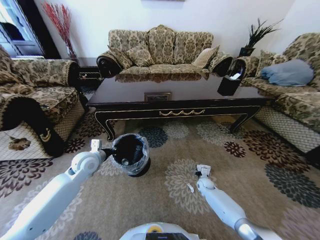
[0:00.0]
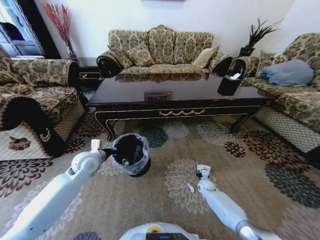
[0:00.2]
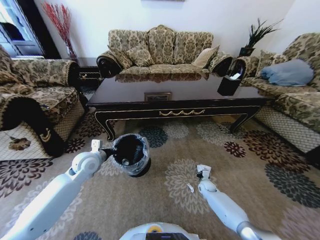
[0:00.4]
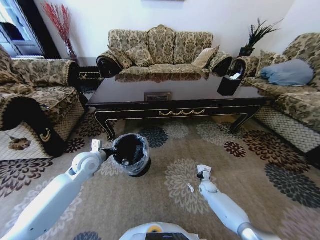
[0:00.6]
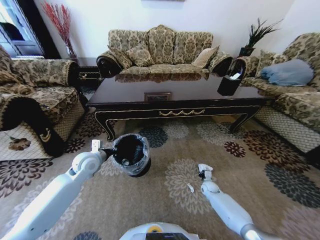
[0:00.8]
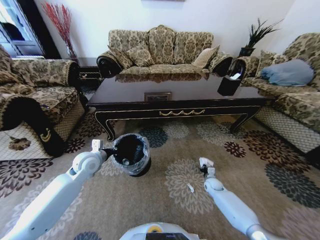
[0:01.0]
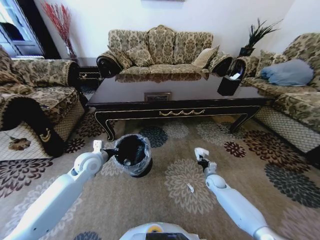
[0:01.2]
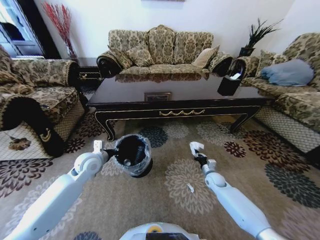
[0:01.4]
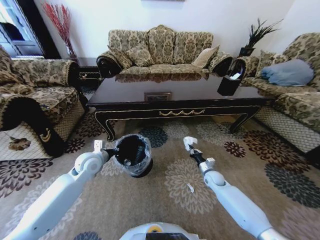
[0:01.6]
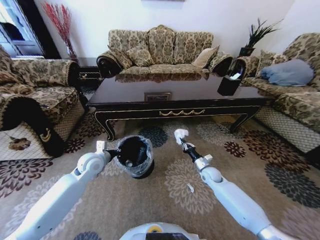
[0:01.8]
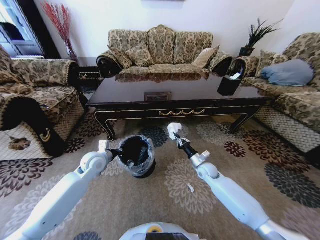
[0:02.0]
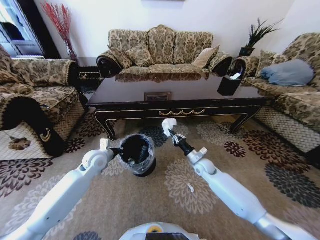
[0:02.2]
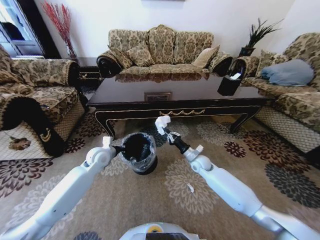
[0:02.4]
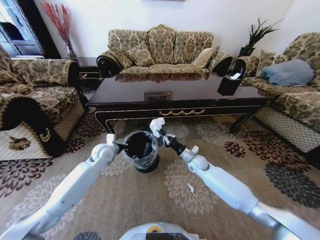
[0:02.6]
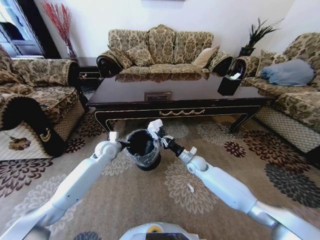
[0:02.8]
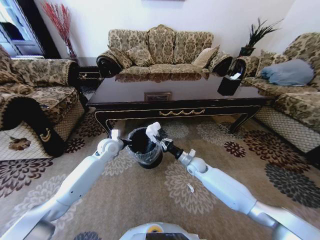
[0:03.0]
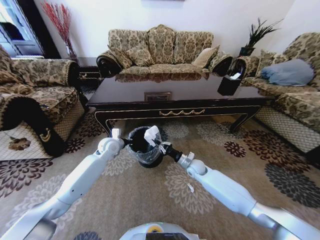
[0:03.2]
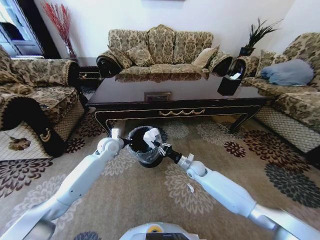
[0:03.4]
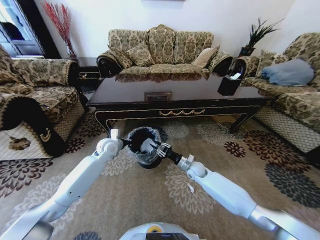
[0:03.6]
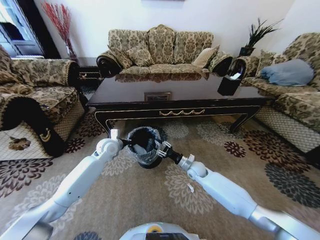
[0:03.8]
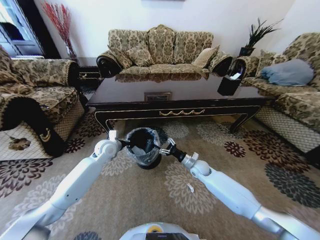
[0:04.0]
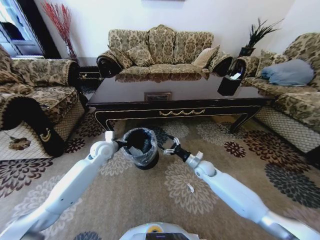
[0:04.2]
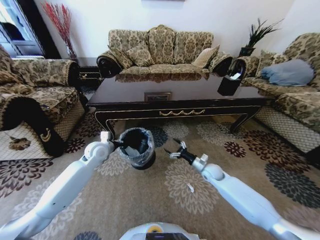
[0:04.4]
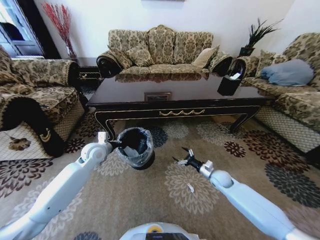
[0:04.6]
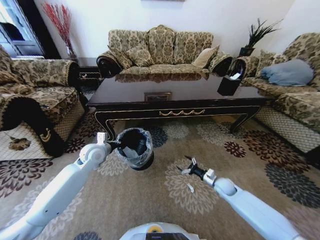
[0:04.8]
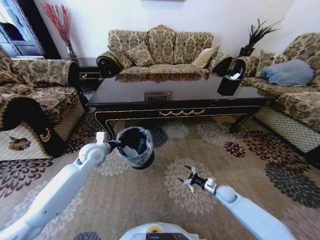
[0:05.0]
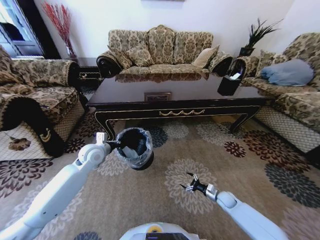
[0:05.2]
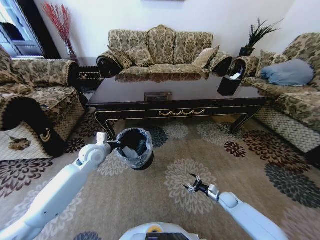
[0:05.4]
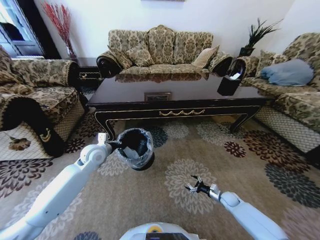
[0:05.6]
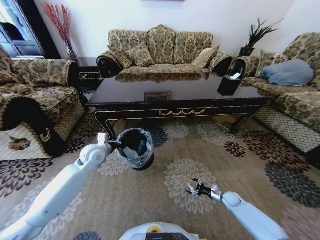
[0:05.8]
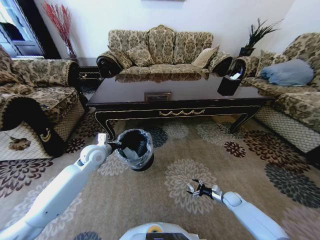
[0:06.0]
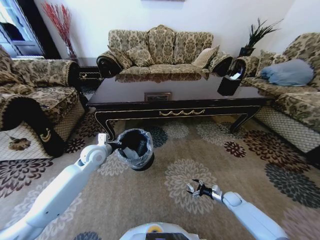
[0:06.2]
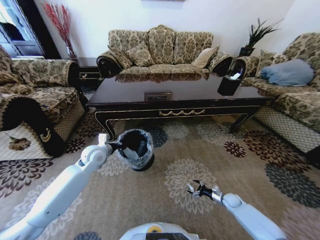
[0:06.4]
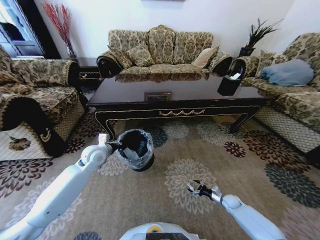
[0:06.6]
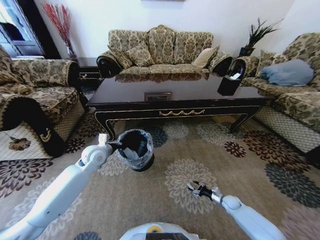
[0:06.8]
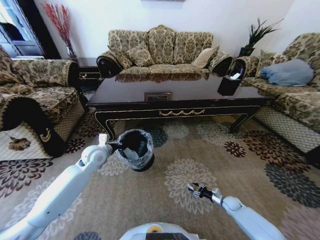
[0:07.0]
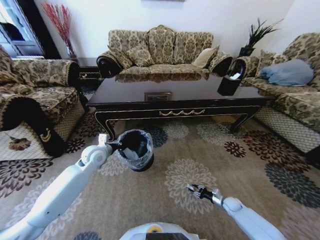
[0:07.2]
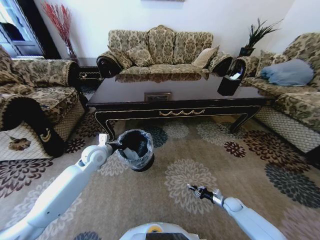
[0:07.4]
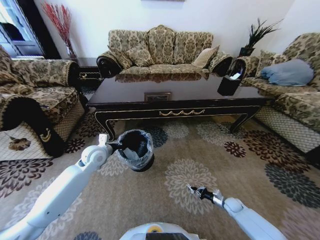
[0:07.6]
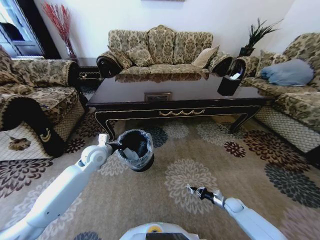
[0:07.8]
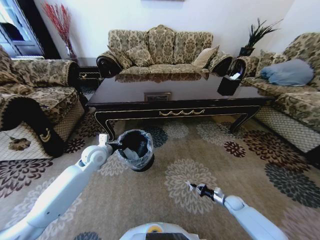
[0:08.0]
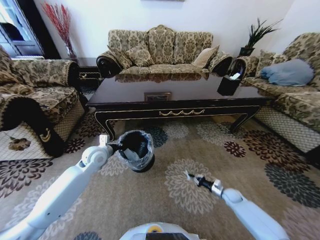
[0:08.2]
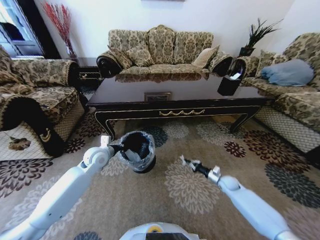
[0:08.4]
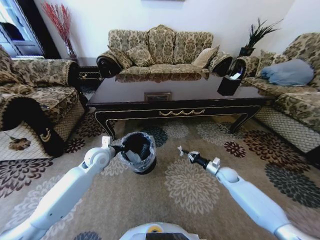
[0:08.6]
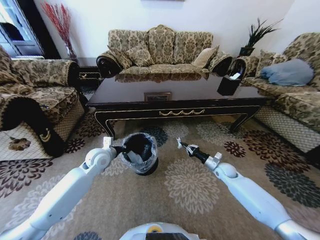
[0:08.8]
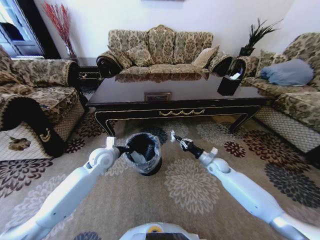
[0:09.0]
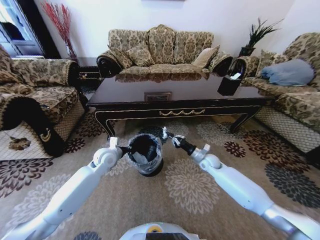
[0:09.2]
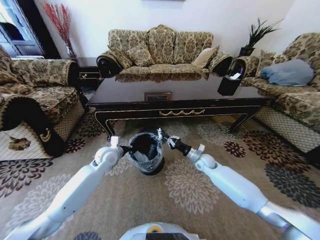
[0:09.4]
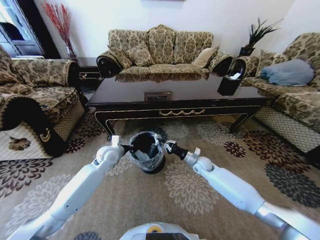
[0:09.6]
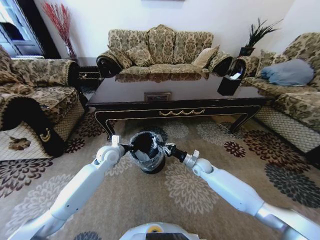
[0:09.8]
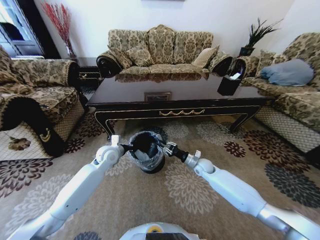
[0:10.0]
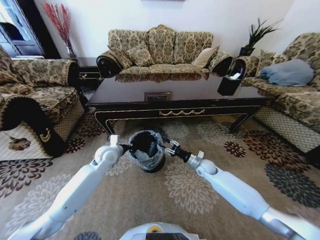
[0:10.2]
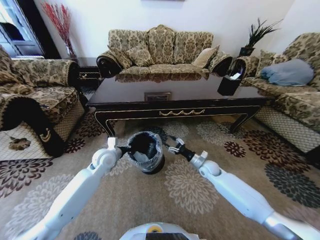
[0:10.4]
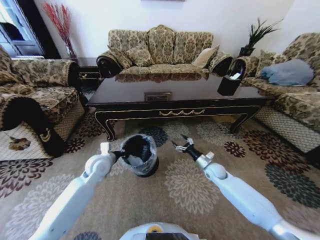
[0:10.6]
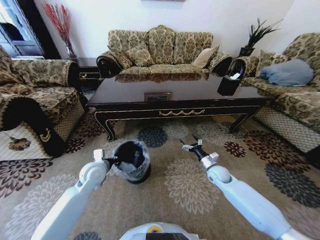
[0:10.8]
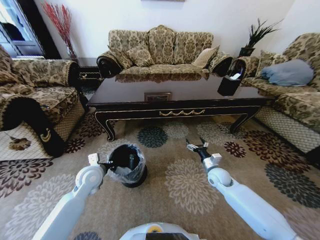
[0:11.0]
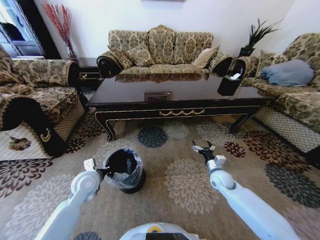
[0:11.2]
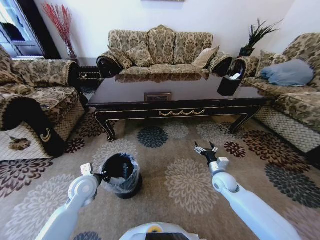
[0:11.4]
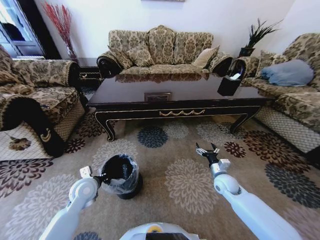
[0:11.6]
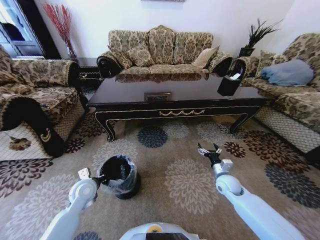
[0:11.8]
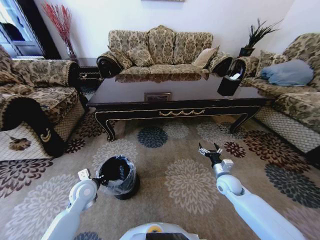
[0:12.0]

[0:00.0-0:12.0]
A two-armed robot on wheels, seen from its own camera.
Task of the whole recording: Move to the front of the table and pick up the trash from the floor, then place it into the trash bin.
0:00.0 to 0:01.6: The right gripper shifts roughly 10 cm upward, and closes up.
0:01.6 to 0:03.0: The right gripper is displaced to the left and upward by some 15 cm. Meanwhile the left gripper moves forward and to the right, approximately 10 cm.
0:03.0 to 0:04.4: The right gripper goes about 10 cm to the right, and opens. Meanwhile the left gripper changes place by about 5 cm.
0:04.4 to 0:06.0: The right gripper travels downward, to the right and backward by about 25 cm.
0:06.0 to 0:07.6: The right gripper closes.
0:07.6 to 0:09.0: The right gripper travels upward, forward and to the left by some 30 cm.
0:09.0 to 0:10.4: The right gripper opens.
0:10.4 to 0:12.0: The left gripper goes about 15 cm backward, downward and to the left. The right gripper moves backward, about 10 cm.

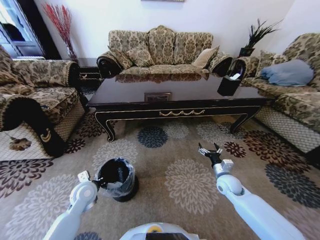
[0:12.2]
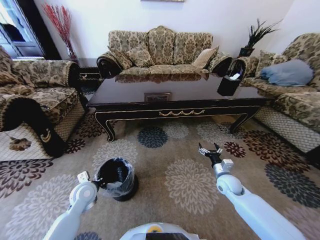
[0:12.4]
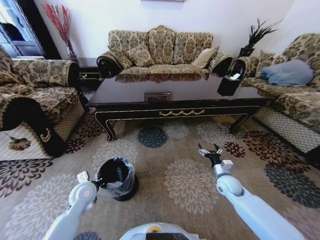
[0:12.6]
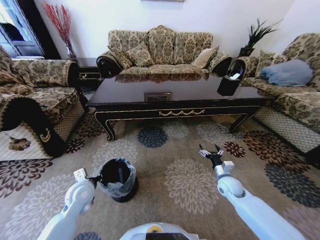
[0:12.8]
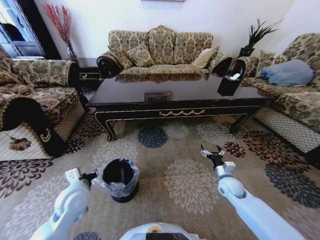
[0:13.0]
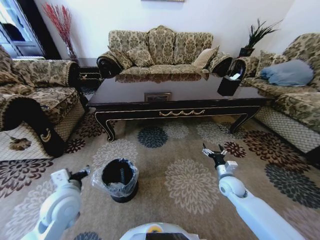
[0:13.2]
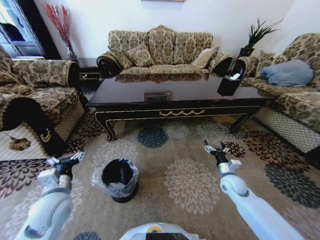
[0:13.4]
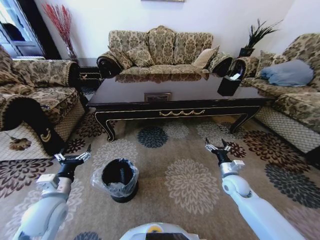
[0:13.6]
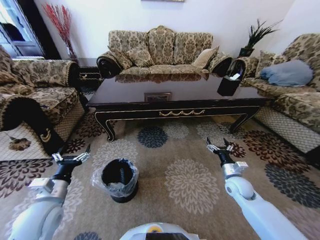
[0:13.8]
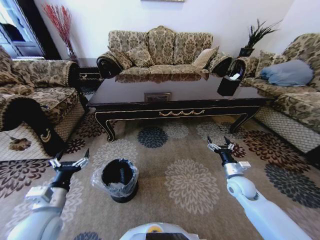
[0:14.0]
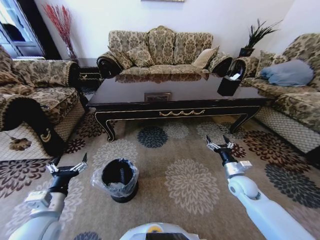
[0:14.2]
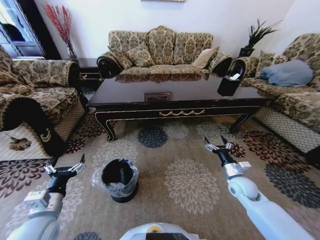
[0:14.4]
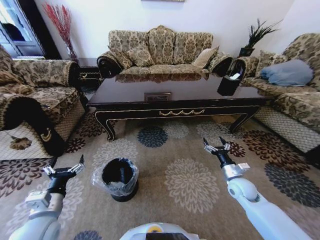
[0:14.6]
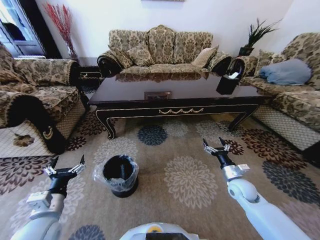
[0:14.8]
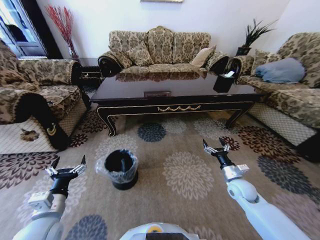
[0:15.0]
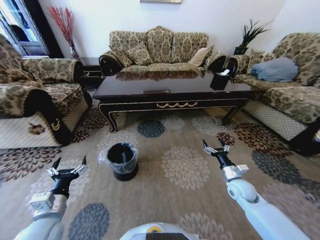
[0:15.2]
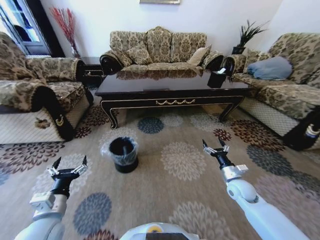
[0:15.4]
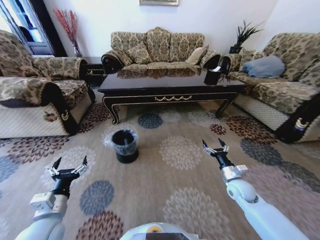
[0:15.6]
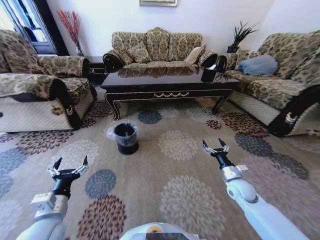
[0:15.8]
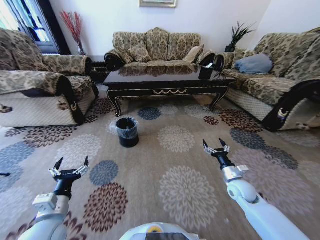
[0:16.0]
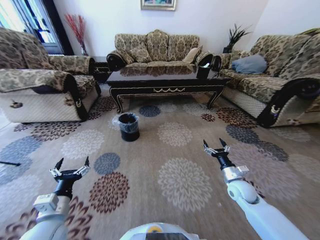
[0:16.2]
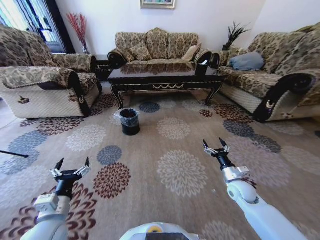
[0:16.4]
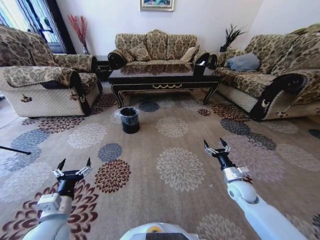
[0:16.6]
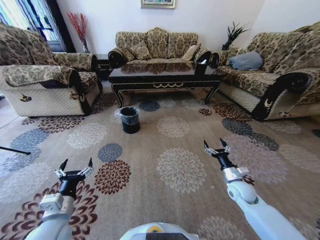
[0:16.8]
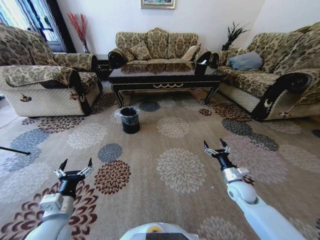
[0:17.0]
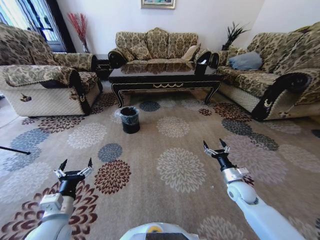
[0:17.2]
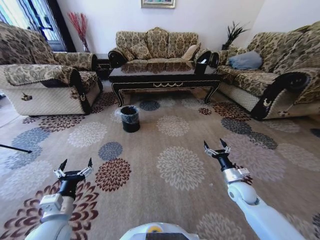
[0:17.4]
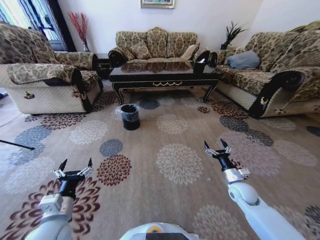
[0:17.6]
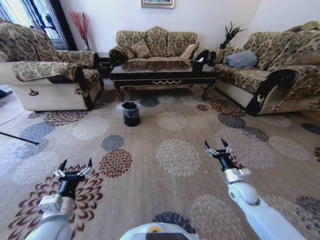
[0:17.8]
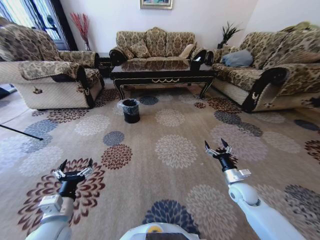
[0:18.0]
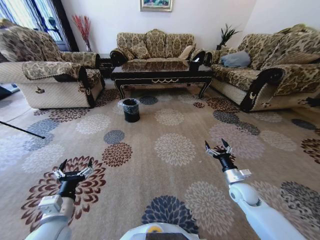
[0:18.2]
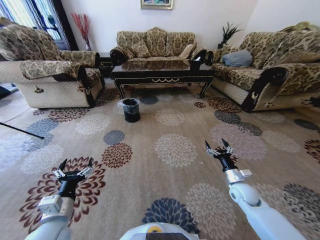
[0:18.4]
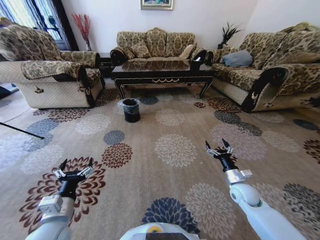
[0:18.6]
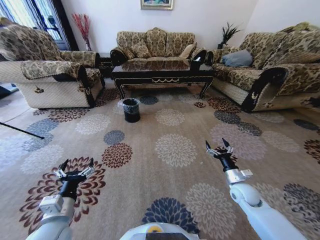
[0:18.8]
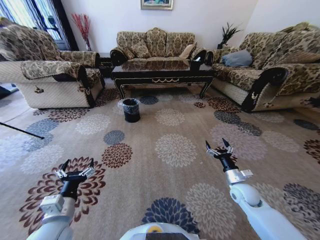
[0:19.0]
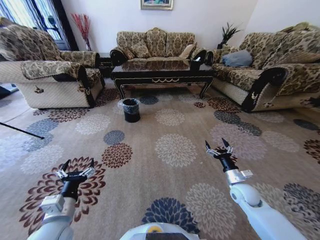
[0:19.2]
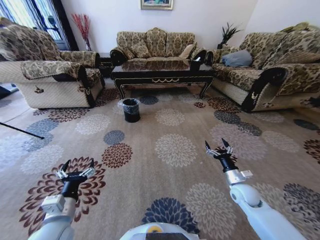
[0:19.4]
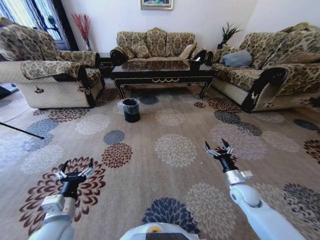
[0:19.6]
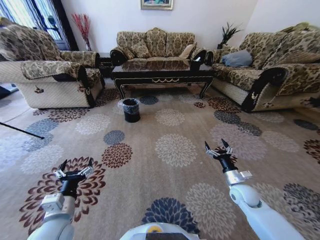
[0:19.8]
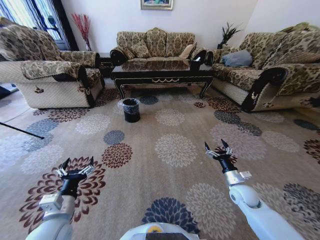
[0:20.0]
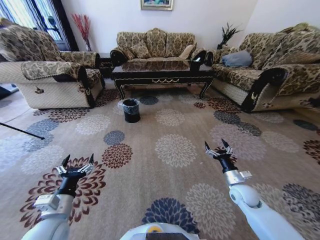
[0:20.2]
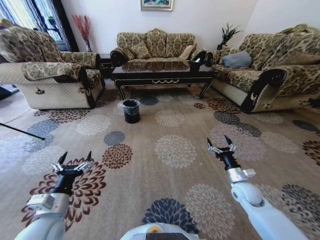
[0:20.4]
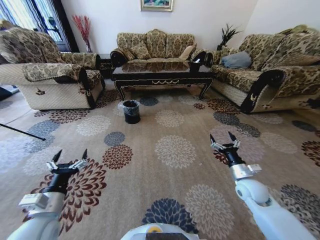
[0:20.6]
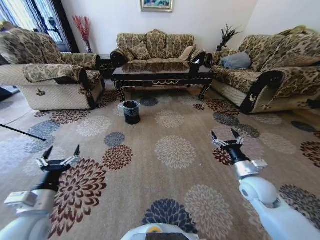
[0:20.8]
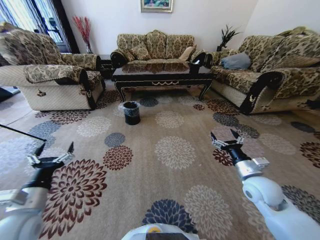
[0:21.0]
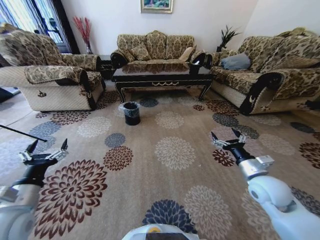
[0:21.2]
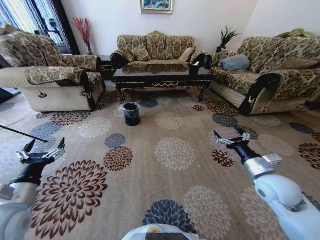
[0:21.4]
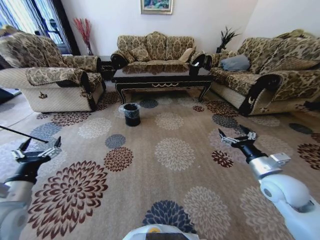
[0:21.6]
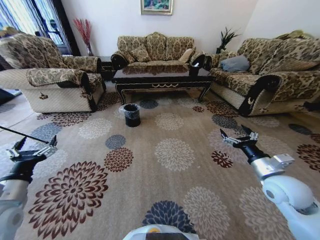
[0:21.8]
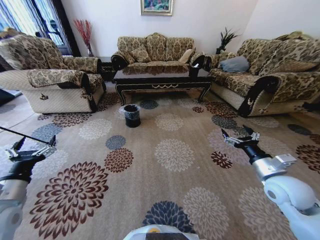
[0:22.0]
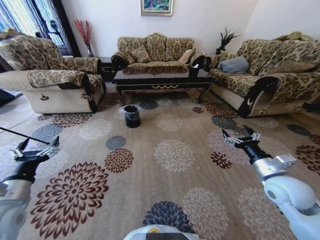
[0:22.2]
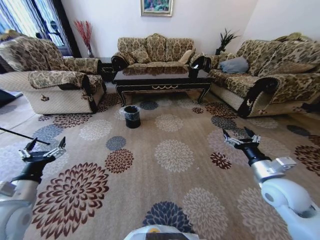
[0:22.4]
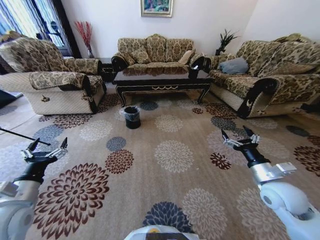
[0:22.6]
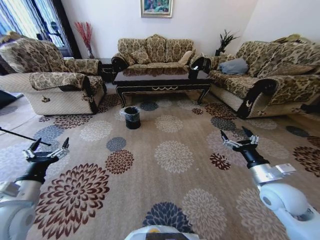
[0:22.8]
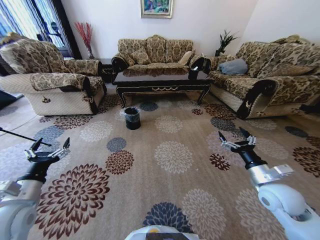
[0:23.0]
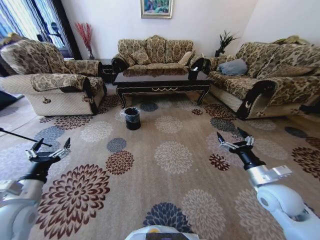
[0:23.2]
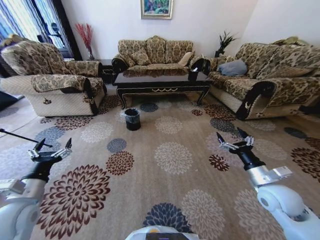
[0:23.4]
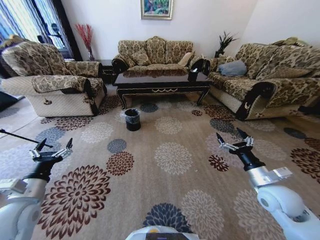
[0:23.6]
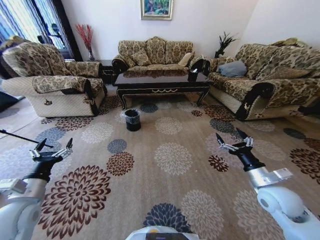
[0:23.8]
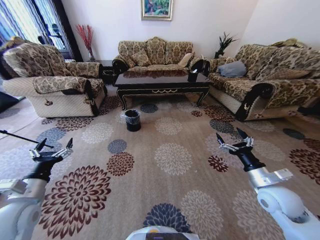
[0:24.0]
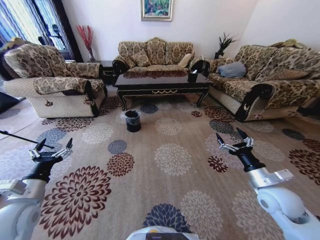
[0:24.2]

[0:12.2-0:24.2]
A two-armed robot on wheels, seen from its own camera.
Task of the whole recording: Move to the front of the table and pick up the trash from the floor, then place it into the trash bin.
0:12.2 to 0:13.8: The left gripper goes approximately 10 cm backward and upward, and opens its fingers.
0:18.2 to 0:19.8: The two grippers keep their place.
0:19.8 to 0:21.2: The right gripper moves upward, approximately 15 cm. The left gripper heads to the left and upward, covering some 10 cm.
